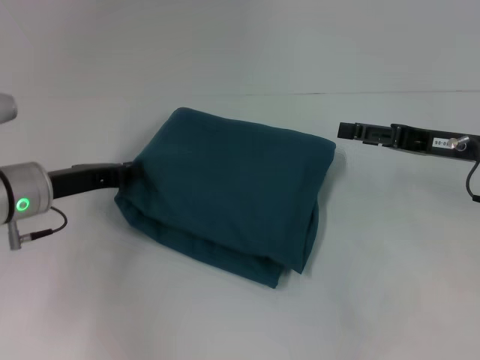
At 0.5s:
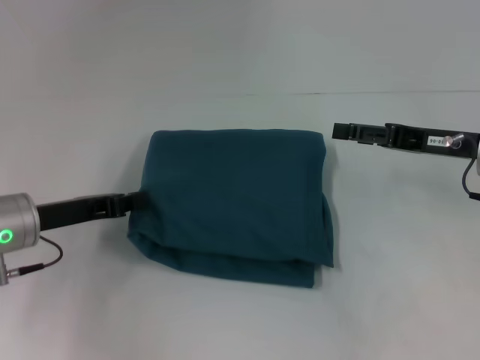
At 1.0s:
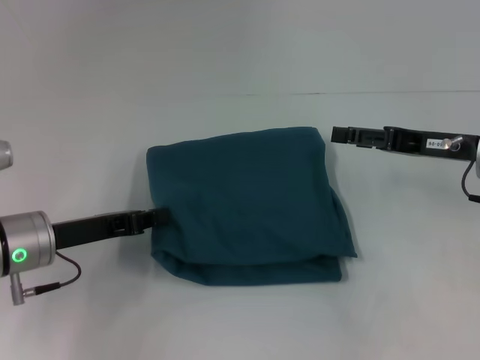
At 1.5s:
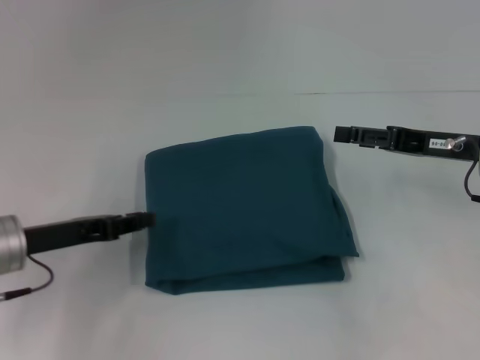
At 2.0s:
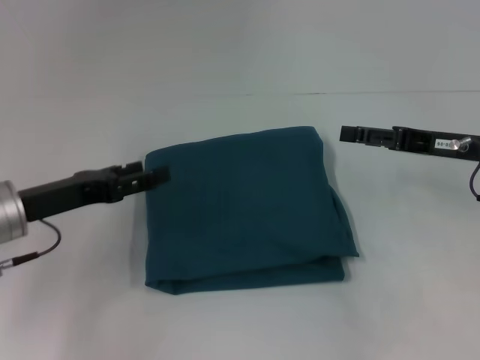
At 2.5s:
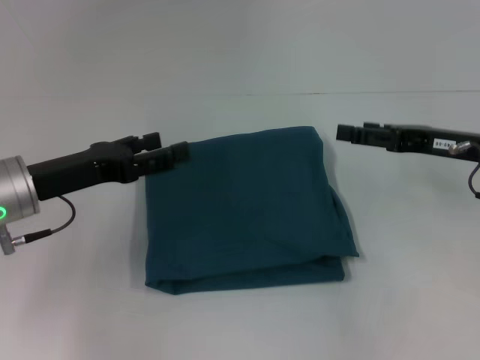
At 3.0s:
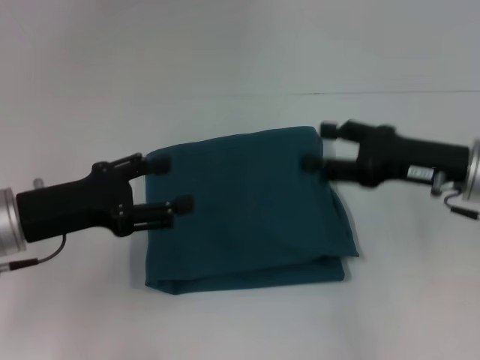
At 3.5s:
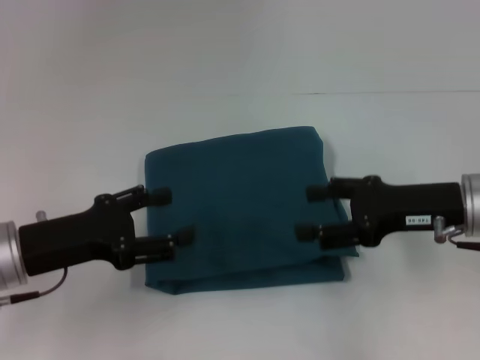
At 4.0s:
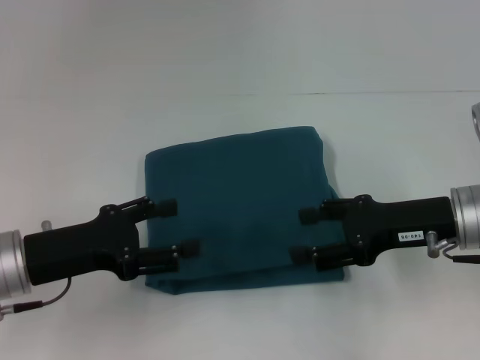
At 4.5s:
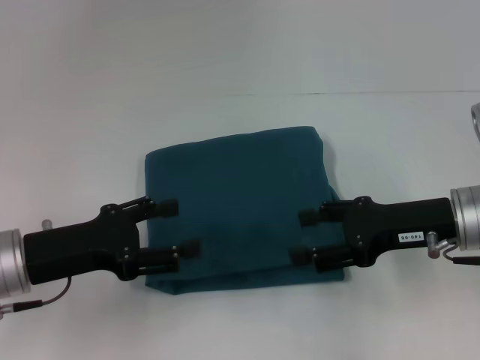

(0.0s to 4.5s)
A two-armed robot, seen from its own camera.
0.0s - 2.0s: The left gripper opens.
2.0s - 4.5s: The right gripper changes place by some 5 cm.

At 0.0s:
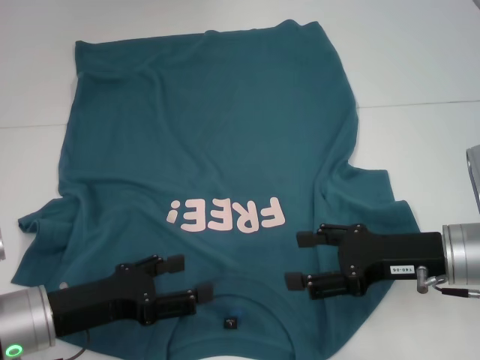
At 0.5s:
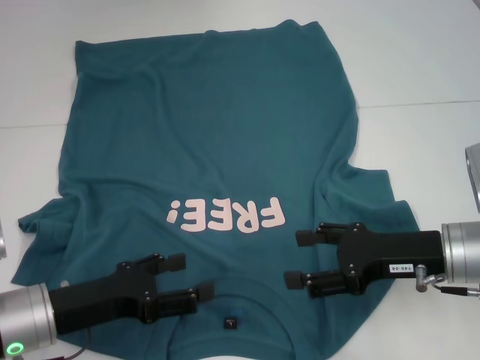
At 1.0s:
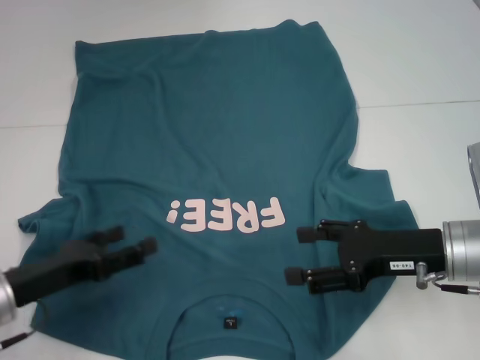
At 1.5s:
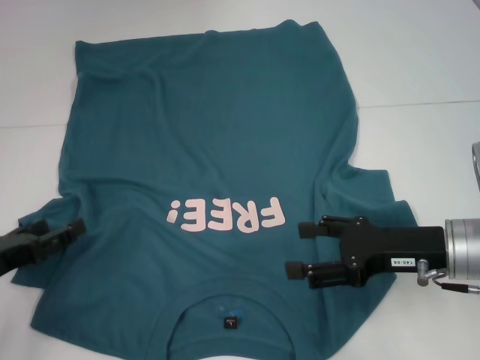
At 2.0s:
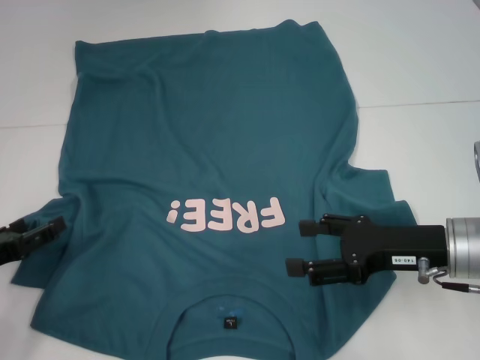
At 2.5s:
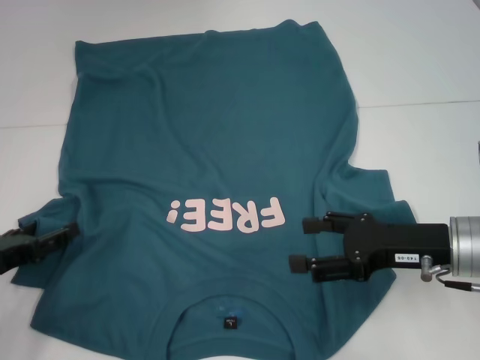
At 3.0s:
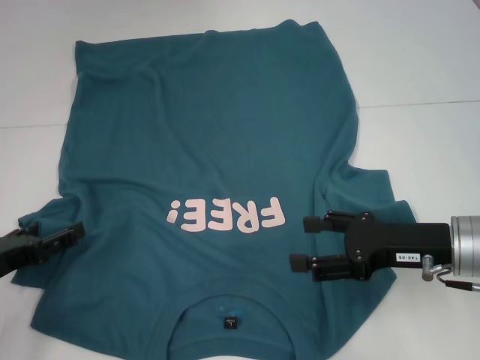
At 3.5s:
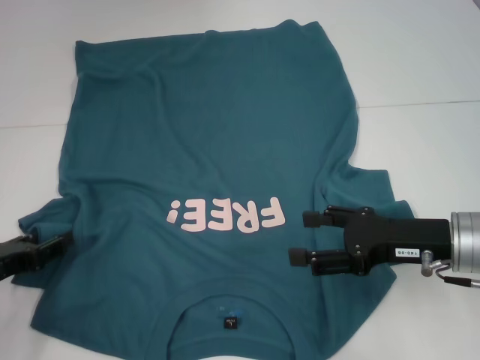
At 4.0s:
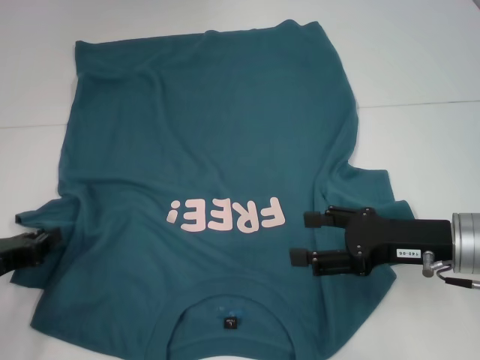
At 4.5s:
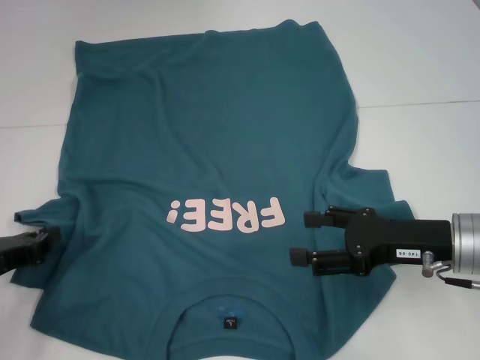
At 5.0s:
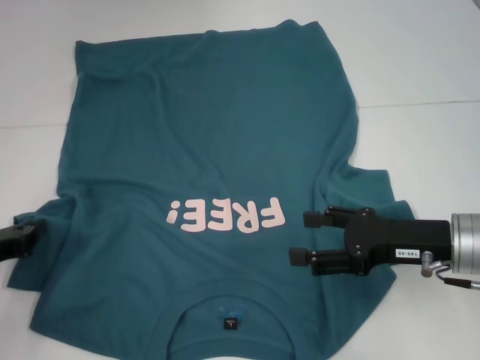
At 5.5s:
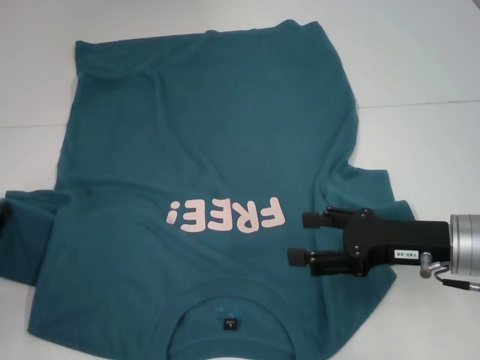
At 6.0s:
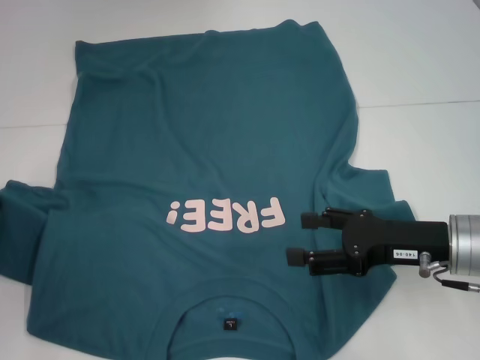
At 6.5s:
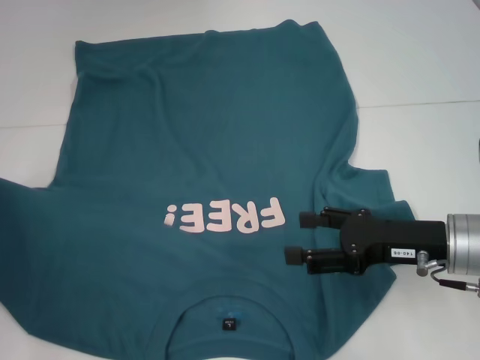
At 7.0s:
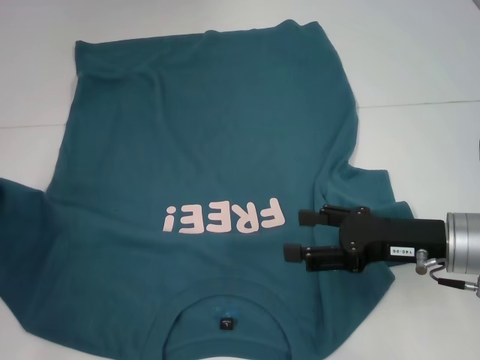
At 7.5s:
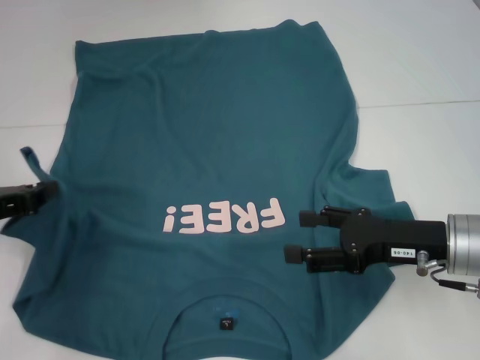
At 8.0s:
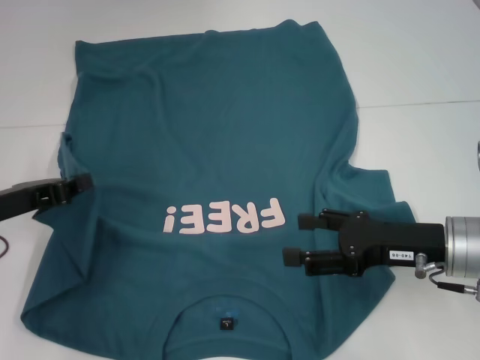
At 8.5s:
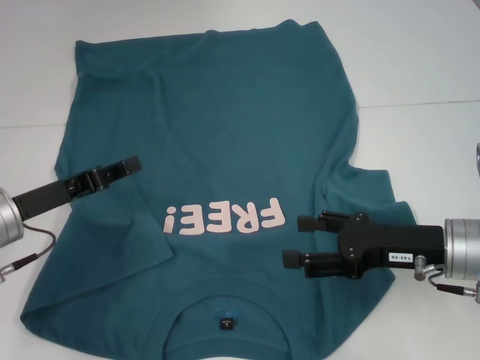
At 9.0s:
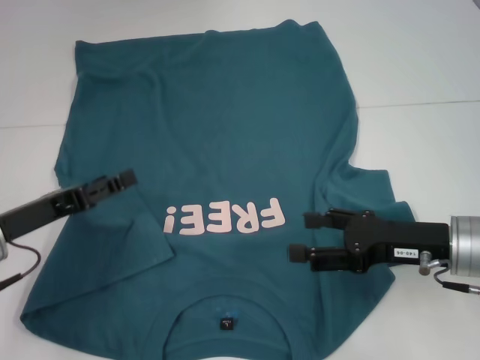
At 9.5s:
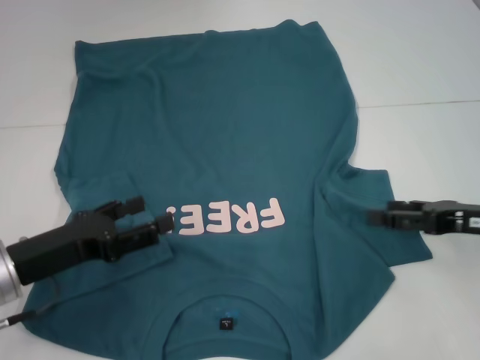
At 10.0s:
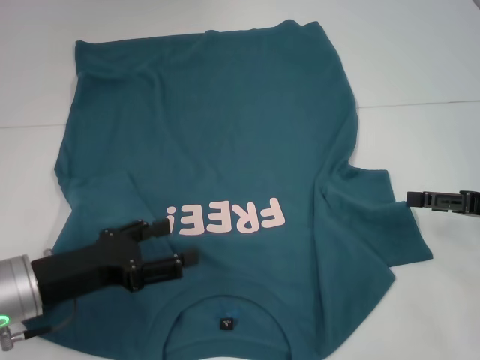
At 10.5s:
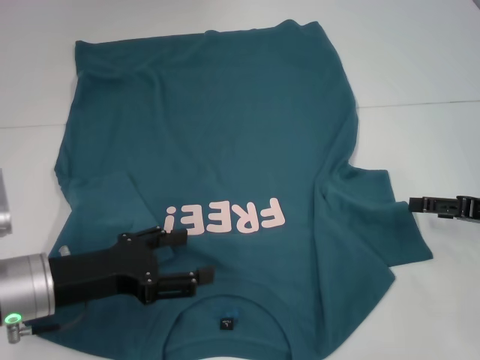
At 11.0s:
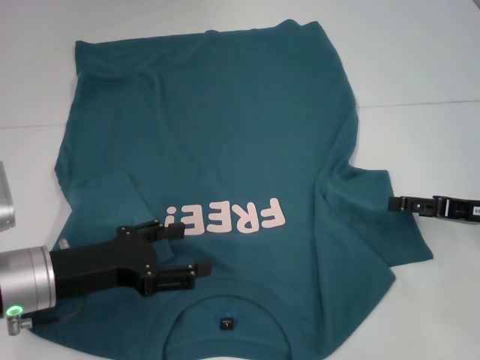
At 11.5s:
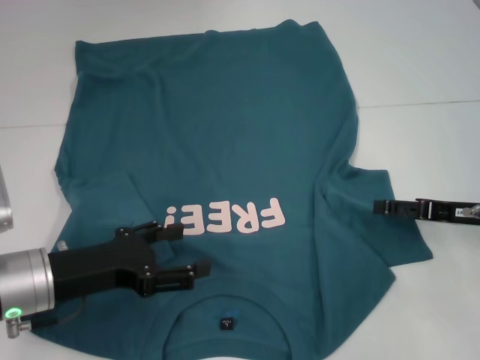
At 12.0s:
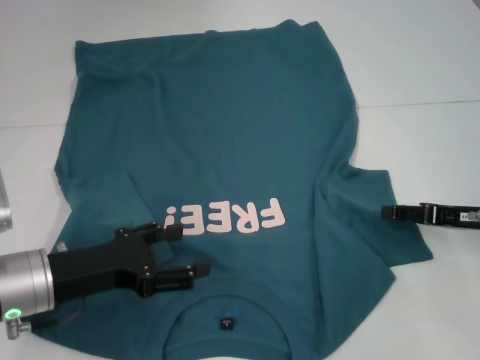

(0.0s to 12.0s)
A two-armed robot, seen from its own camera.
Step, 0.0s - 8.5s: Fold the bottom left sleeve with your left hand.
0.0s - 2.0s: The left gripper travels to the left by about 10 cm.
2.0s - 4.0s: The left gripper closes up.
4.0s - 6.0s: The left gripper moves roughly 5 cm.
6.0s - 8.0s: The left gripper shifts some 5 cm to the right.
8.0s - 10.0s: The left gripper shifts some 5 cm to the right and backward, and opens up; the right gripper travels to the right by about 10 cm.
10.0s - 12.0s: There are only small adjustments of the grippers.

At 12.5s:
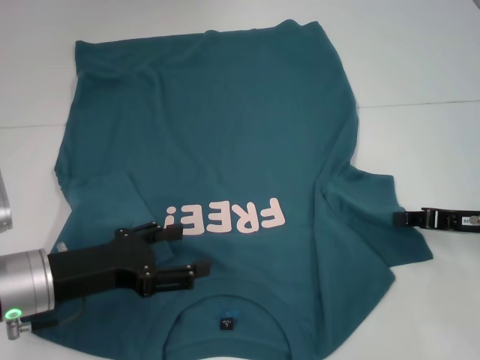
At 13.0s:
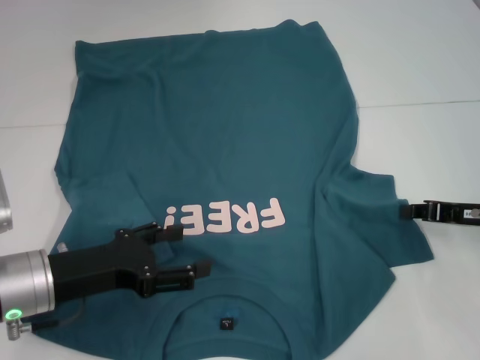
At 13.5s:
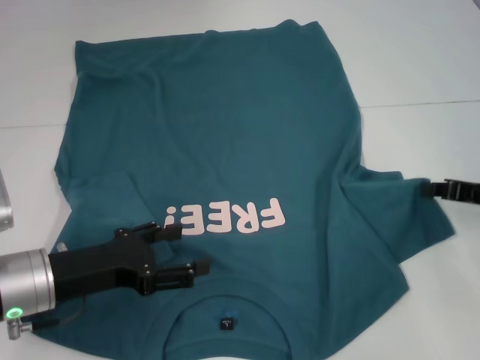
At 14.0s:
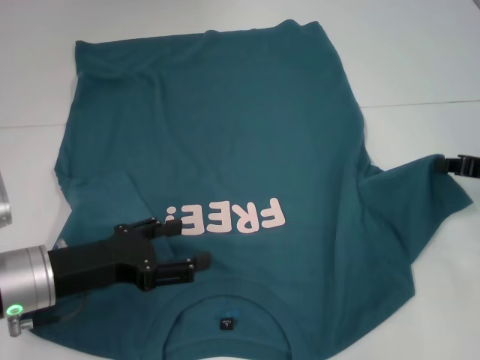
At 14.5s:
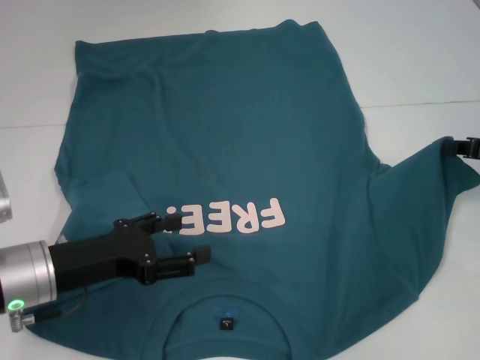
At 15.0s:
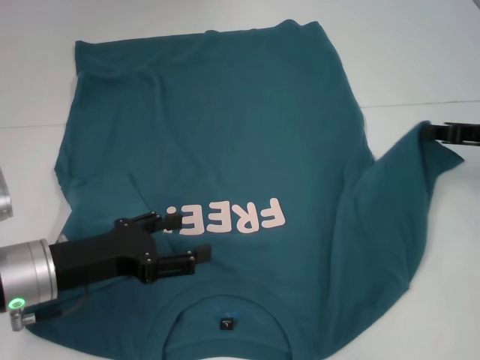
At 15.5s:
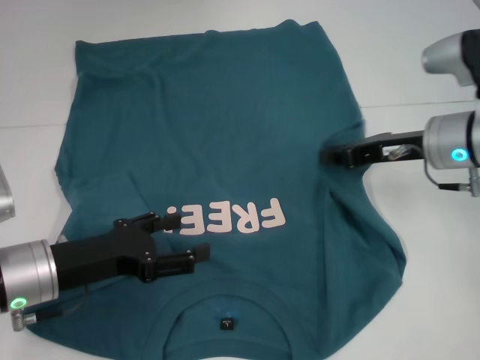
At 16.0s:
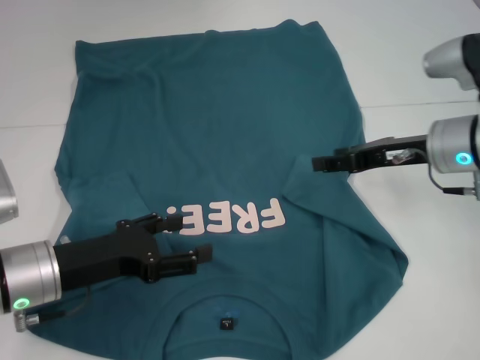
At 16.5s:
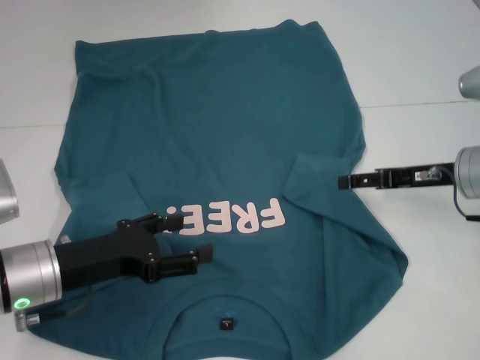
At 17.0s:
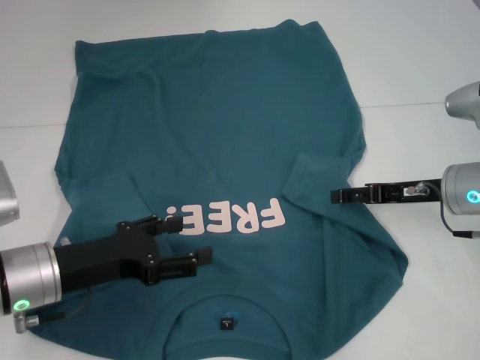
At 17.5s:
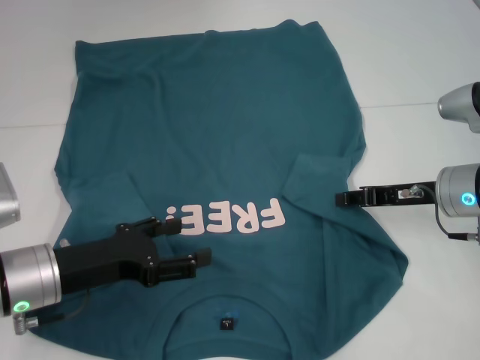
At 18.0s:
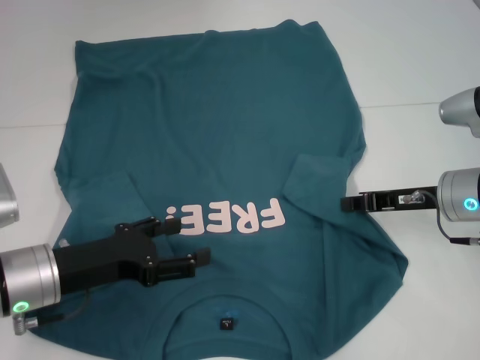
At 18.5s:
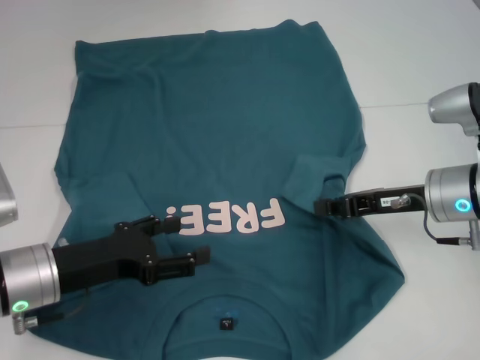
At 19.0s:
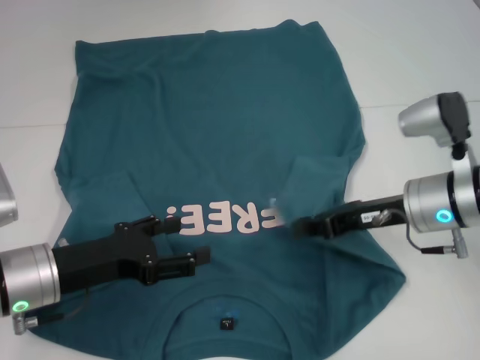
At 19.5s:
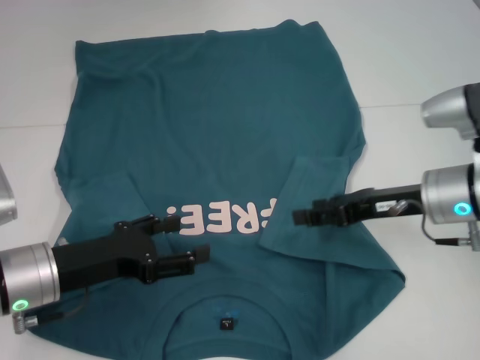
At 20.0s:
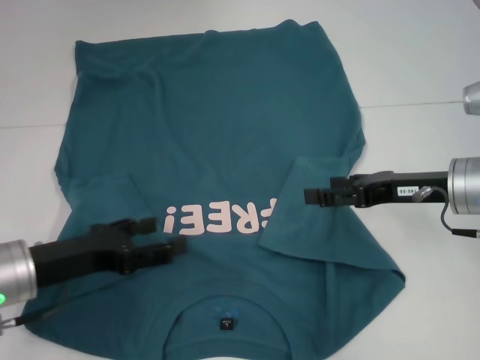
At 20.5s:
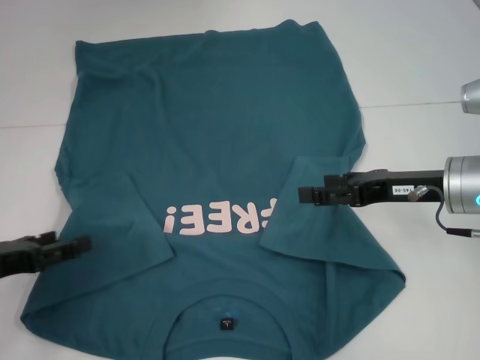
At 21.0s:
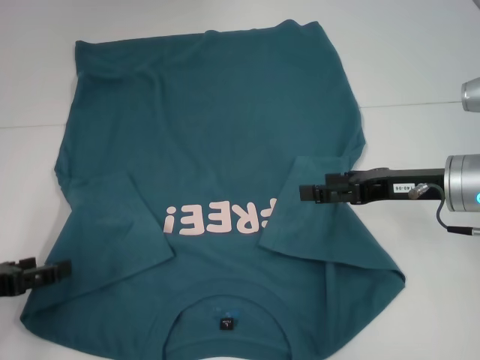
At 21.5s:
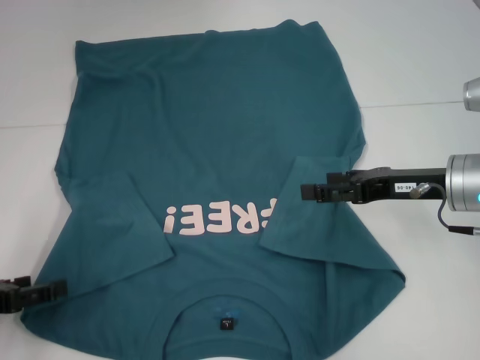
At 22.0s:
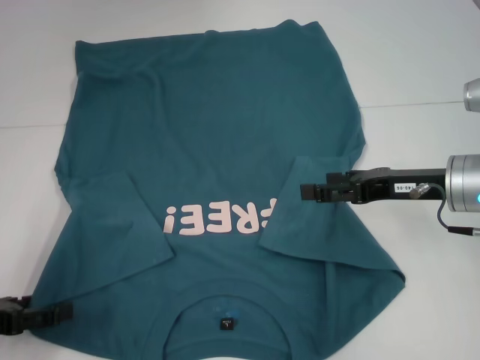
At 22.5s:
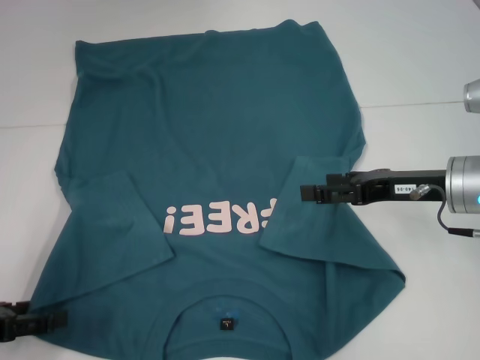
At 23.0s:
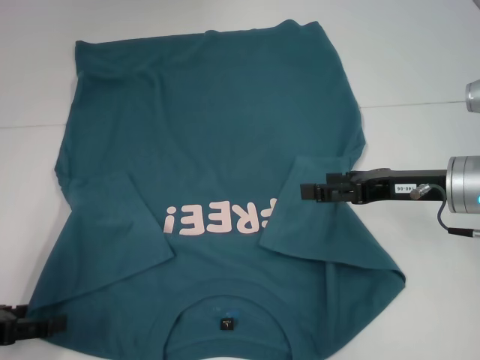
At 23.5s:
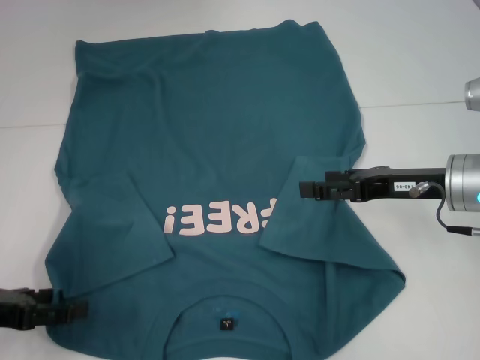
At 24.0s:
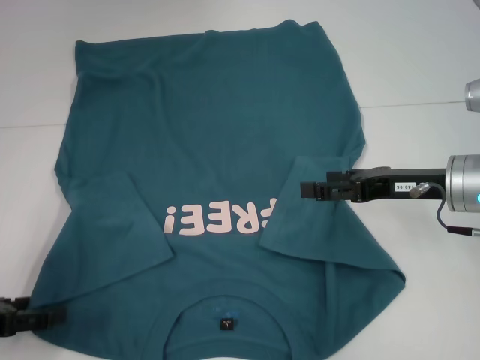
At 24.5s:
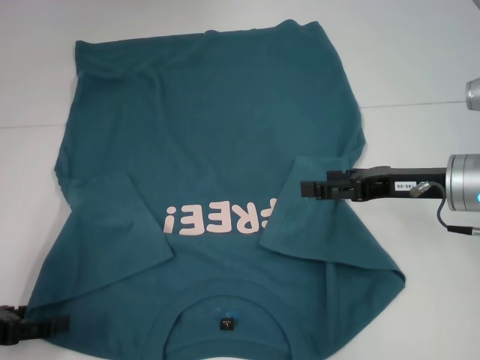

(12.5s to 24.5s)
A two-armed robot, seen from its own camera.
Step, 12.5s - 19.0s: Fold the bottom right sleeve to the right.
12.5s - 14.5s: The right gripper is displaced upward by about 5 cm.
14.5s - 16.5s: The right gripper moves to the left, some 10 cm, and opens.
16.5s - 18.5s: The right gripper closes up.
18.5s - 20.5s: The right gripper opens its fingers; the left gripper goes roughly 10 cm to the left.
20.5s - 24.5s: There are only small adjustments of the grippers.
